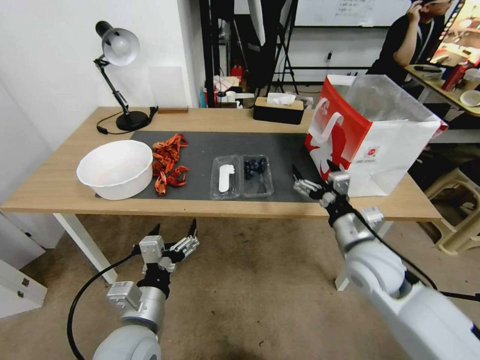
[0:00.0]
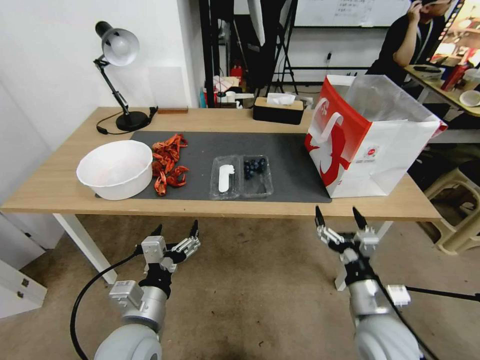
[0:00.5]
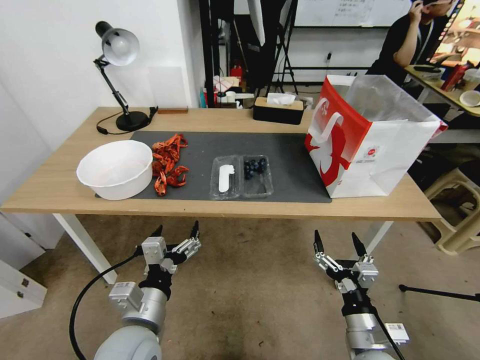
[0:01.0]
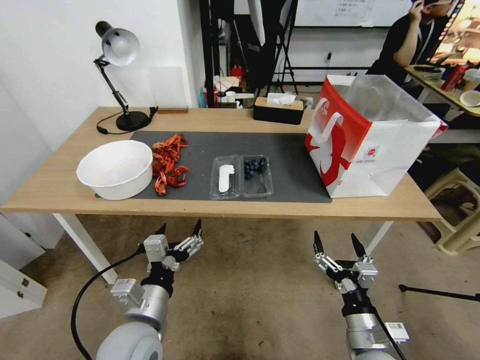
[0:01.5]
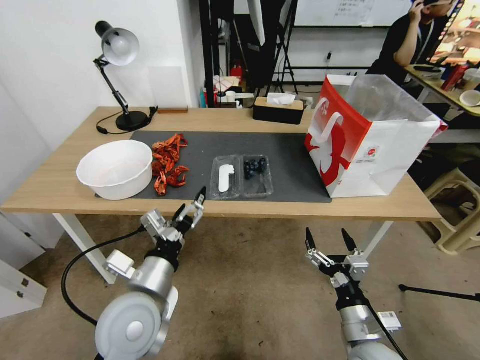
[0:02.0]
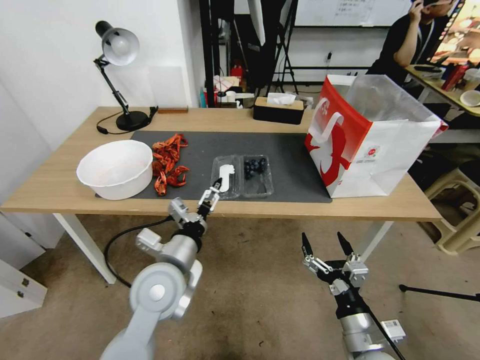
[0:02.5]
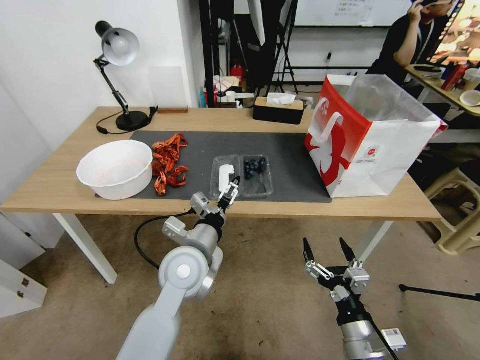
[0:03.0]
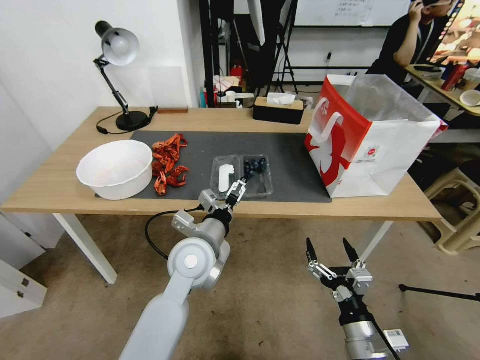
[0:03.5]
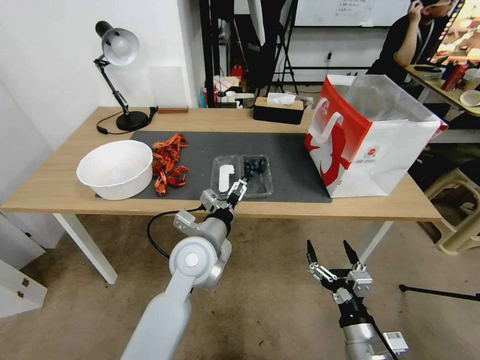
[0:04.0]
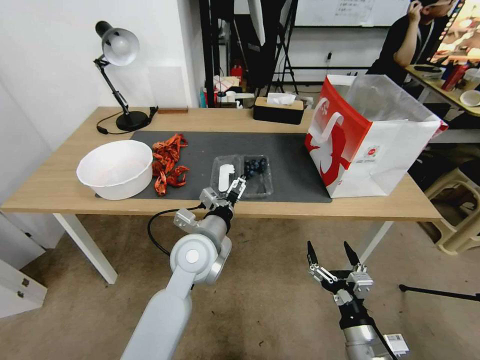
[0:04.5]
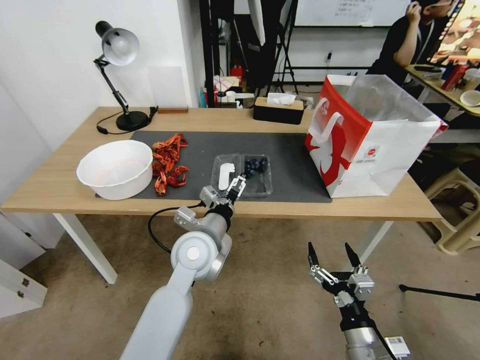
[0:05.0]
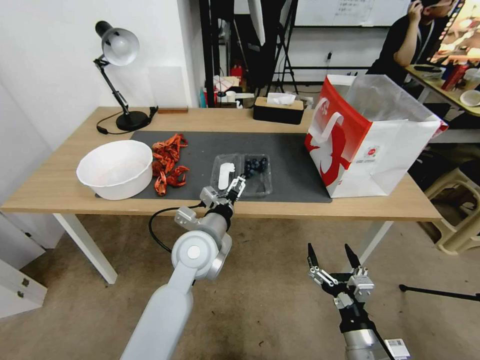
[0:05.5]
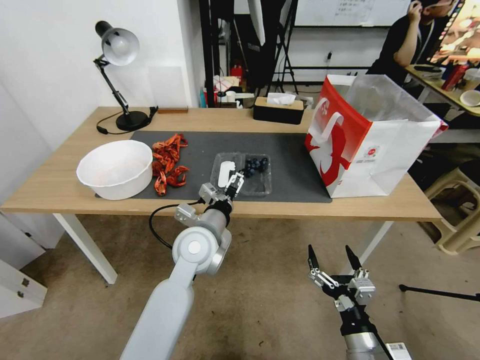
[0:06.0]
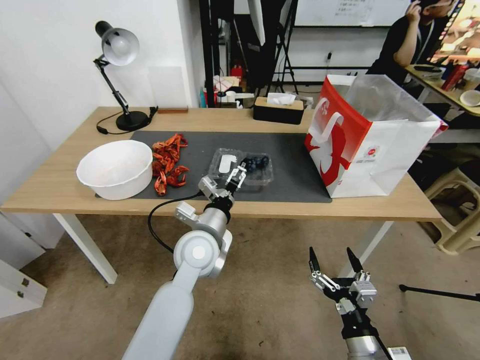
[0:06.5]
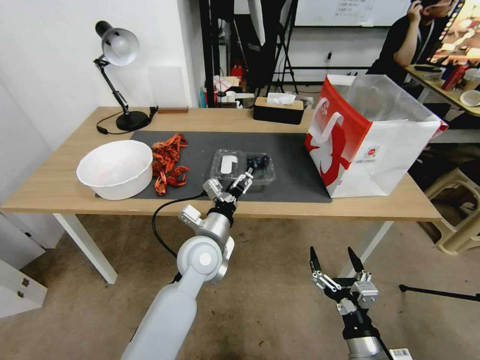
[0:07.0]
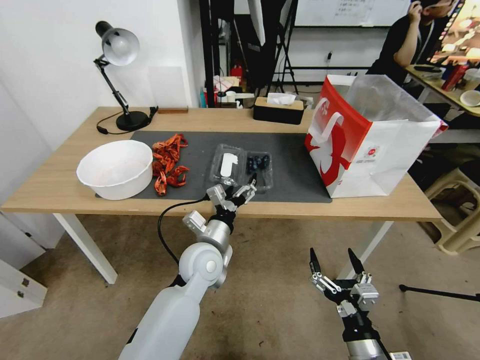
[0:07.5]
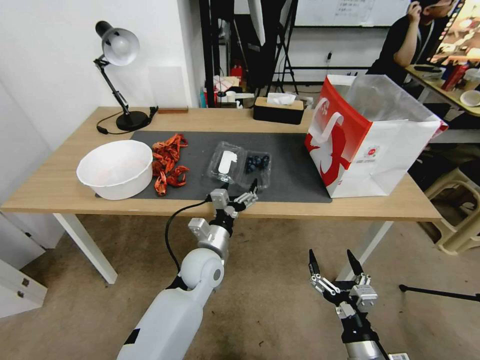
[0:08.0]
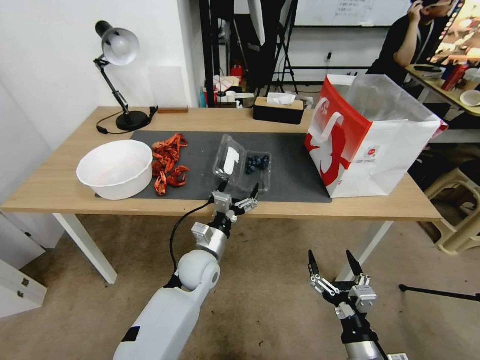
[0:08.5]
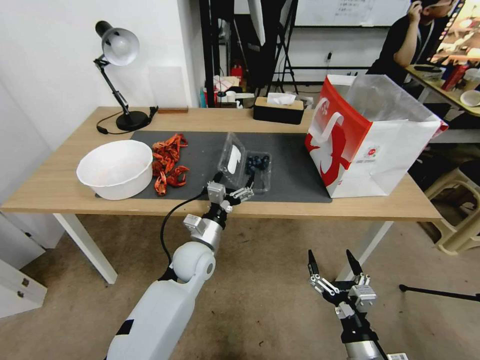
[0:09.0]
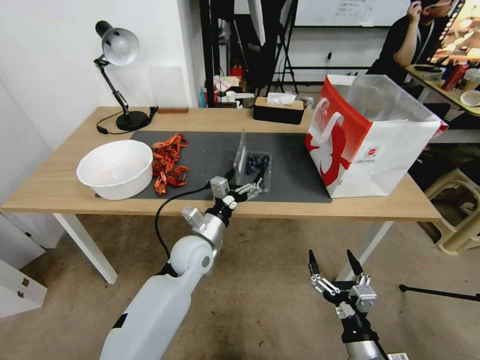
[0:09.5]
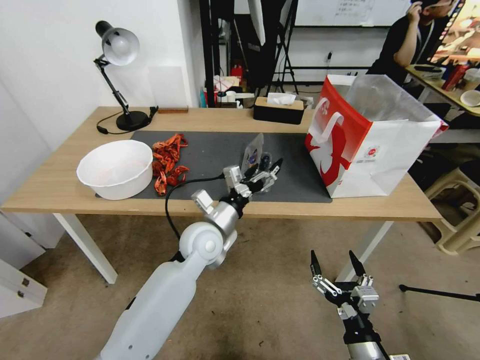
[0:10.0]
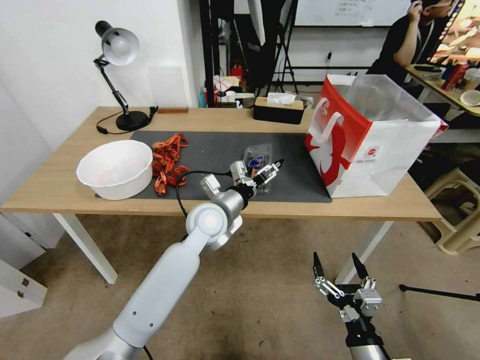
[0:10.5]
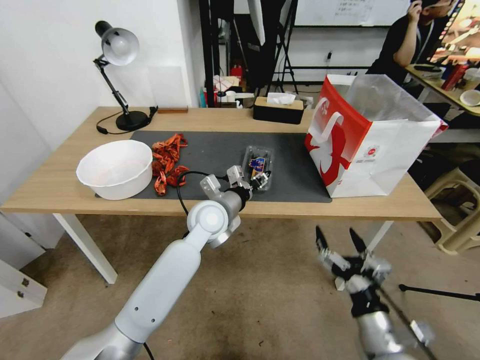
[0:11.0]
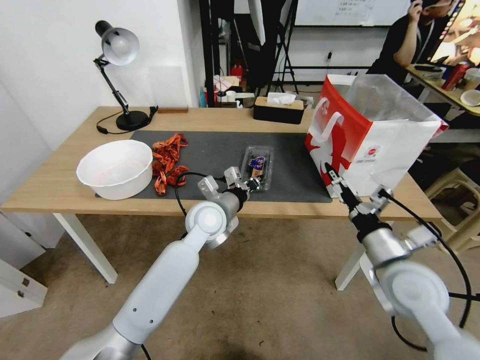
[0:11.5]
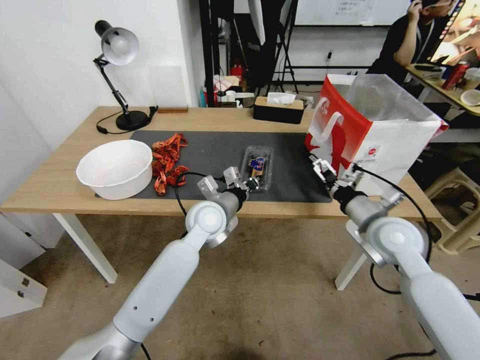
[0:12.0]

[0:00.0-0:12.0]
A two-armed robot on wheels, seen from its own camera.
Task of the whole recording: Close the takeout container lid, then place the container into the takeout bag.
0:00.0 to 0:02.0: The right gripper is displaced backward and downward by roughly 20 cm, while the left gripper ends up about 5 cm from where it was.
0:02.0 to 0:04.0: The left gripper heads forward and to the right, covering some 15 cm.
0:04.0 to 0:06.0: The grippers move only a little.
0:06.0 to 0:08.0: The left gripper is displaced downward by roughly 10 cm.
0:08.0 to 0:10.0: The left gripper travels upward by approximately 5 cm.
0:10.0 to 0:12.0: The left gripper closes its fingers; the right gripper goes some 30 cm forward and upward.

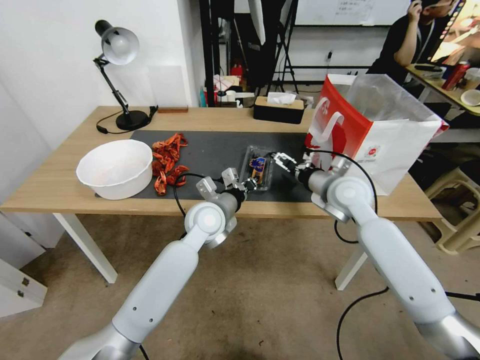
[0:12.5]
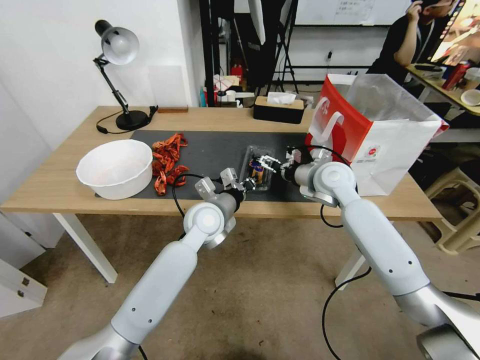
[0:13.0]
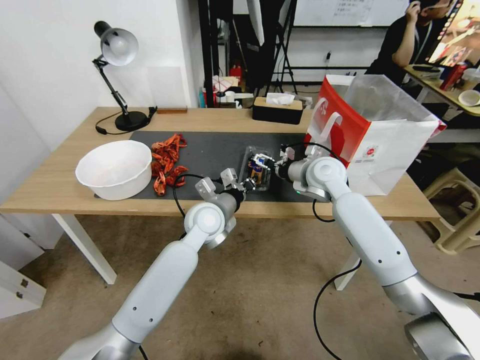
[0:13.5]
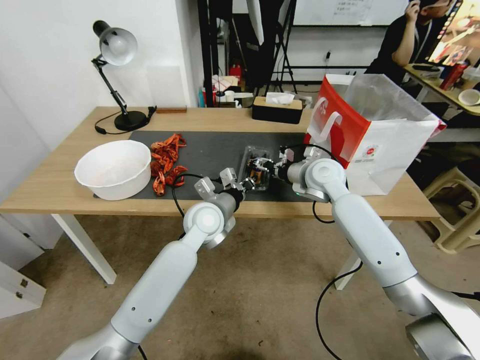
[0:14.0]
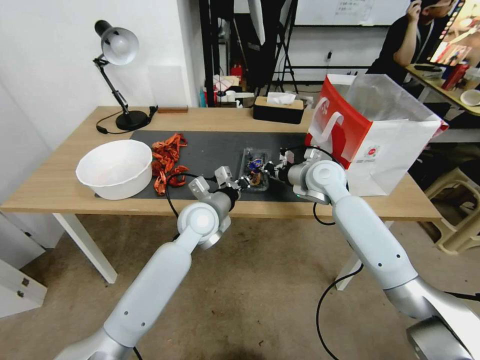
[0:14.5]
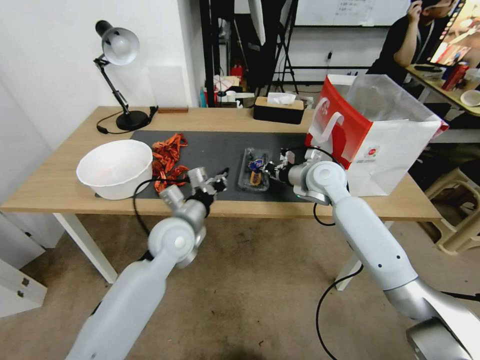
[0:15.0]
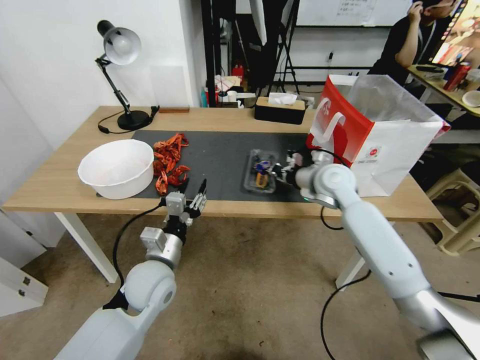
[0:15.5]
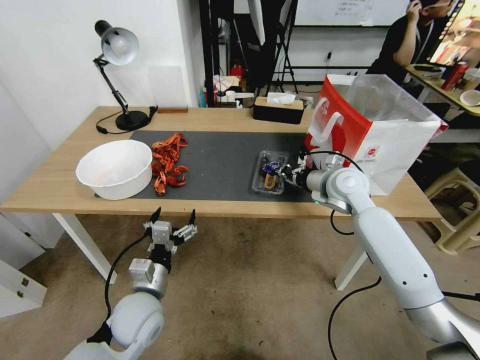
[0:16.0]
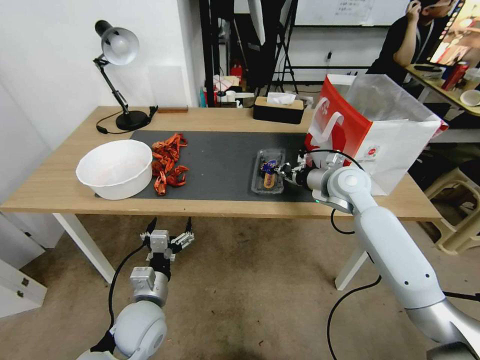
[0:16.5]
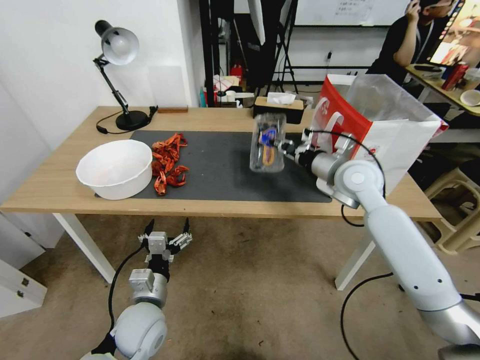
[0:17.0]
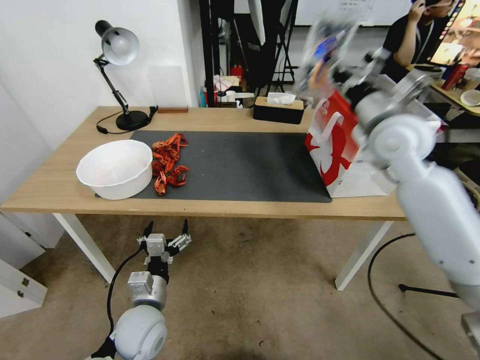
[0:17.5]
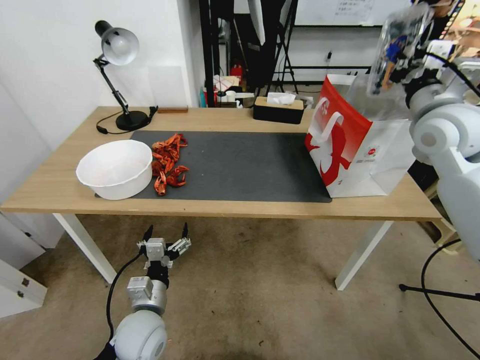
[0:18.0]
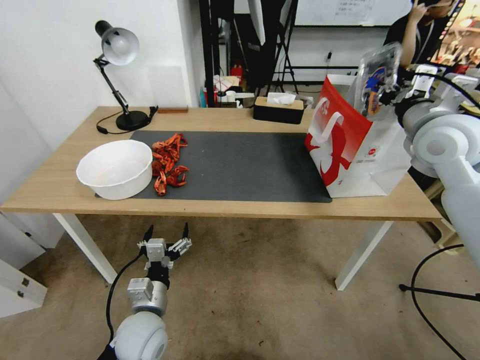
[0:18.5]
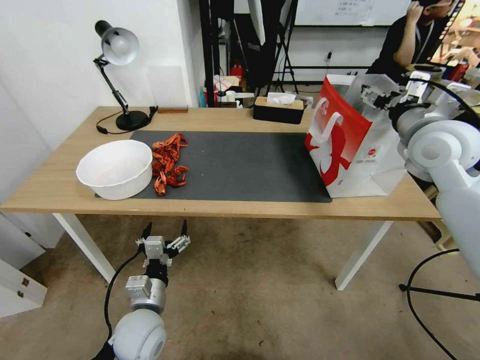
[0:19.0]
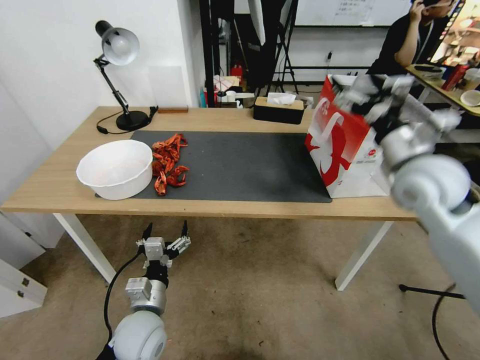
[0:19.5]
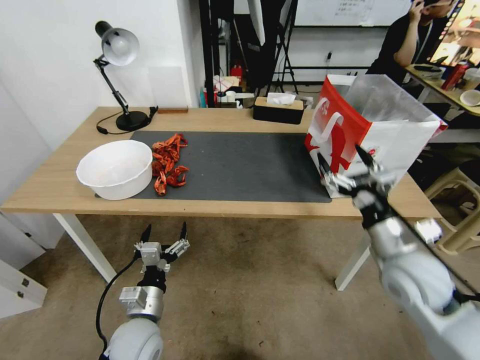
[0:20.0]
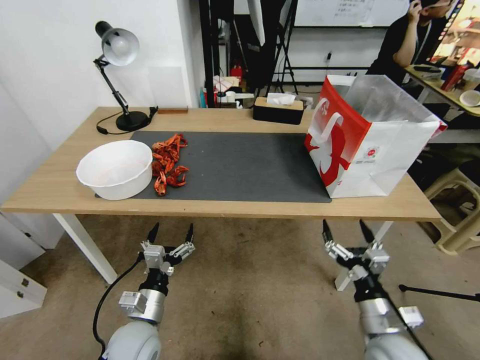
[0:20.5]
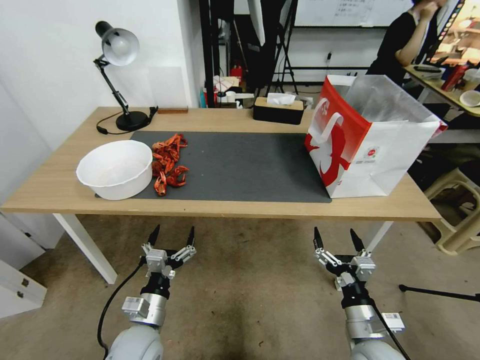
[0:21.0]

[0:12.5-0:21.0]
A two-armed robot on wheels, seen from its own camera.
Task of the whole recording: Close the takeout container lid, then place the container into the takeout bag.
0:12.5 to 0:14.5: The right gripper goes roughly 5 cm forward, and closes up.
0:14.5 to 0:16.5: The right gripper shifts by some 5 cm. The left gripper travels backward, to the left and downward by about 25 cm, and opens up.
0:16.5 to 0:19.0: The right gripper heads upward and to the right, covering about 20 cm, and opens.
0:19.0 to 0:21.0: The right gripper travels downward and backward by roughly 40 cm.

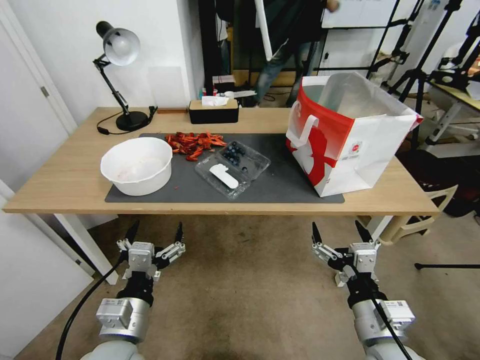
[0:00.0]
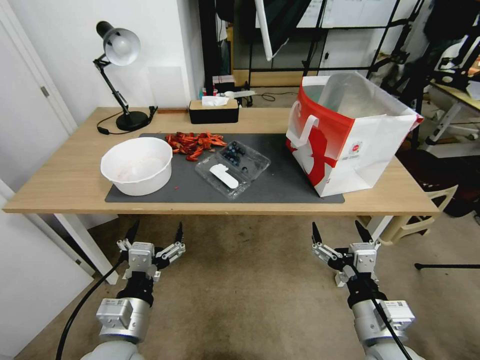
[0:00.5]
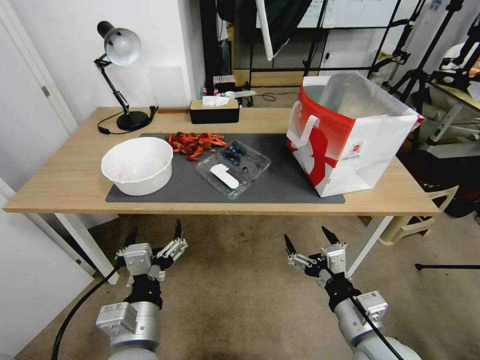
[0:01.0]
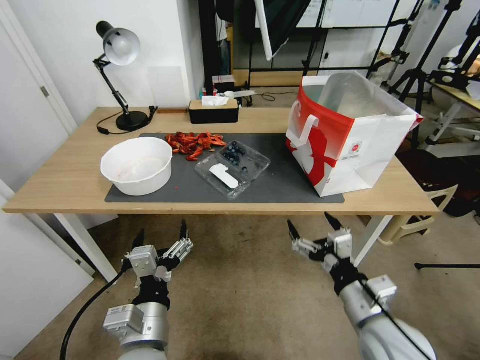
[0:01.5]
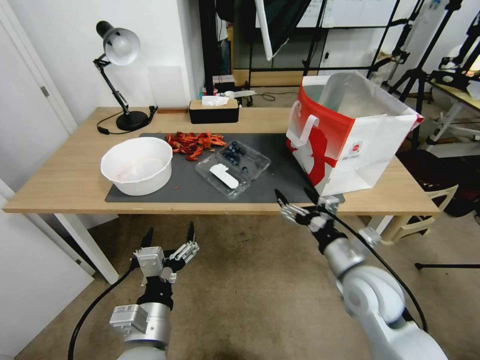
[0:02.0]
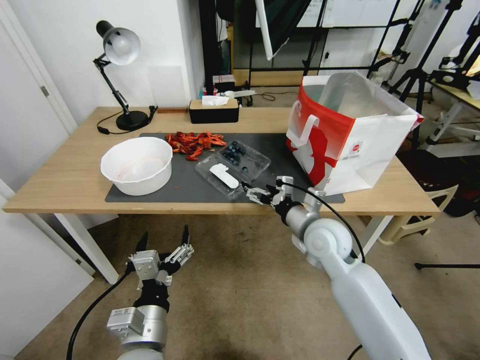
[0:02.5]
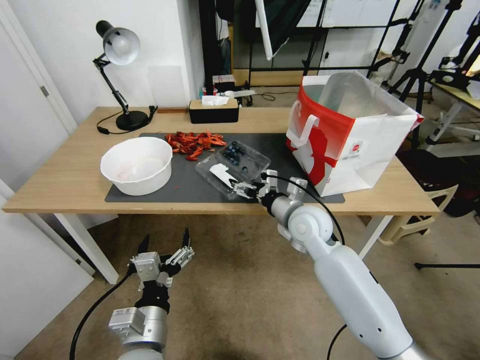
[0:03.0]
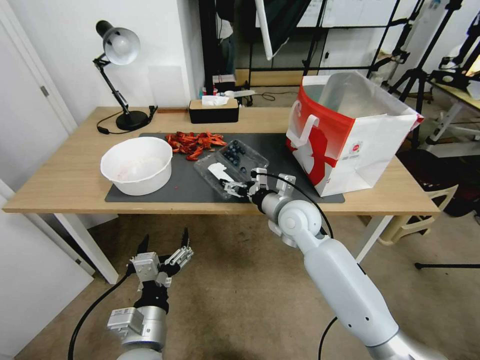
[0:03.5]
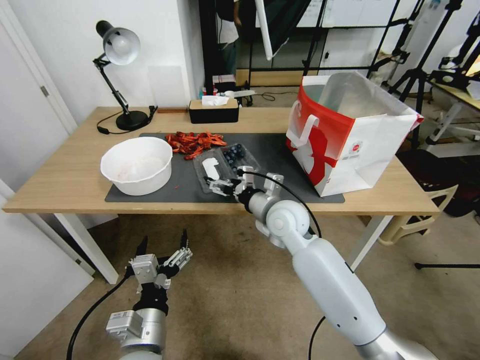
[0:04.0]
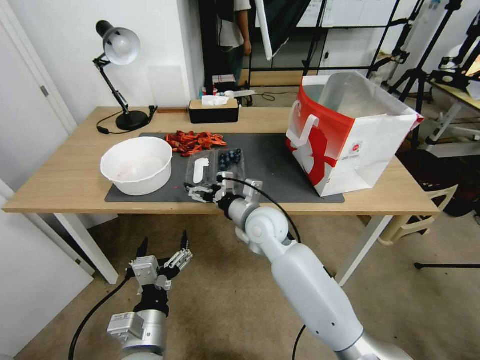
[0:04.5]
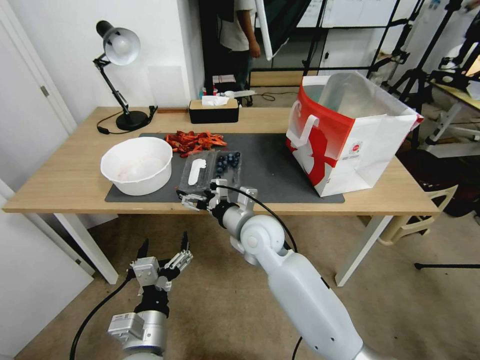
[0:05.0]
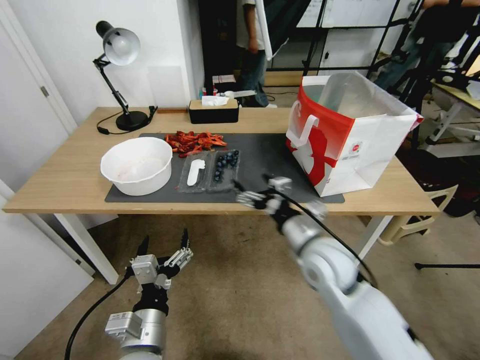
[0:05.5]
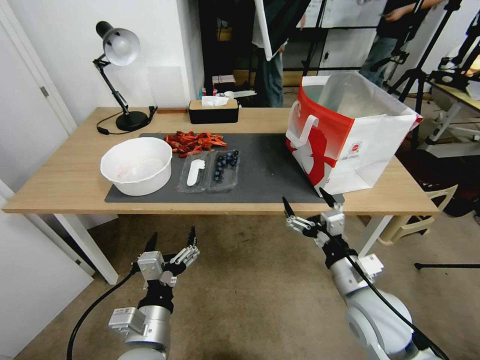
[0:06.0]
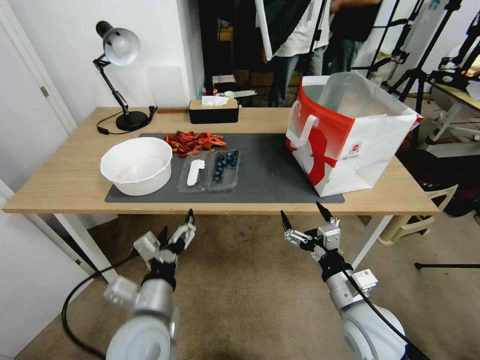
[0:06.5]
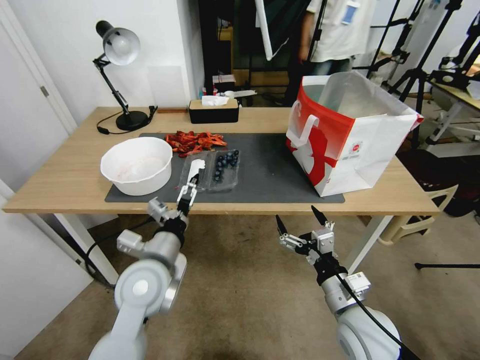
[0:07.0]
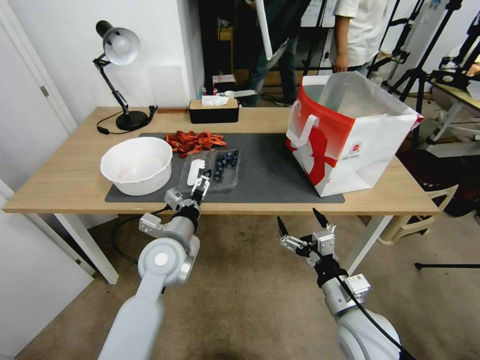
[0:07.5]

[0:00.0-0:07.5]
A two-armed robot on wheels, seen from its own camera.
Task of the whole recording: Close the takeout container lid, then place the container into the takeout bag.
0:02.0 to 0:04.0: The right gripper moves forward and to the left, roughly 20 cm.
0:04.0 to 0:05.5: The right gripper travels backward by about 5 cm.
0:05.5 to 0:07.5: The right gripper travels backward, to the right and downward by some 20 cm. Meanwhile the left gripper travels forward by about 20 cm.
